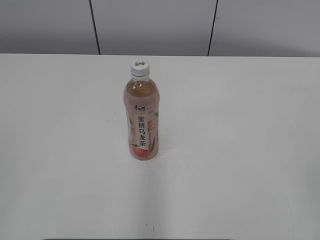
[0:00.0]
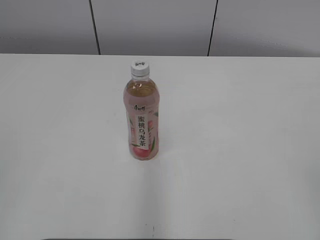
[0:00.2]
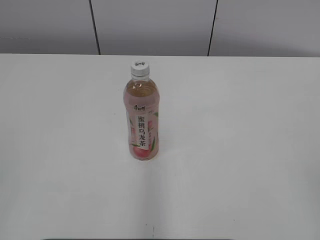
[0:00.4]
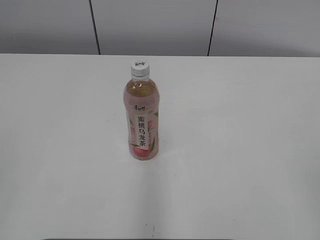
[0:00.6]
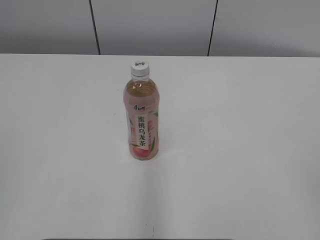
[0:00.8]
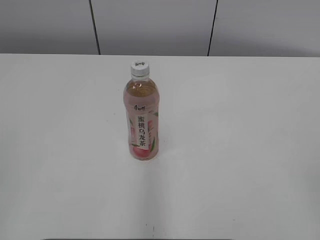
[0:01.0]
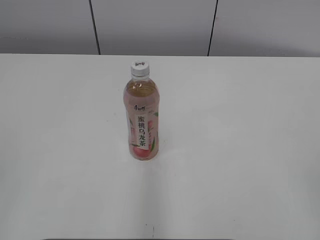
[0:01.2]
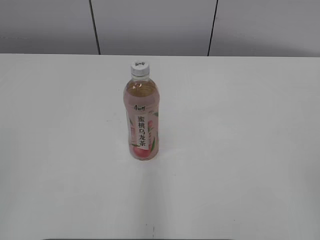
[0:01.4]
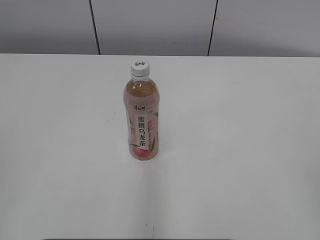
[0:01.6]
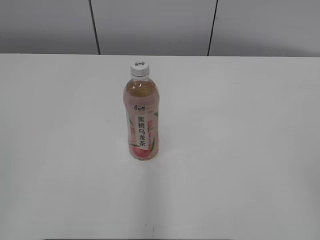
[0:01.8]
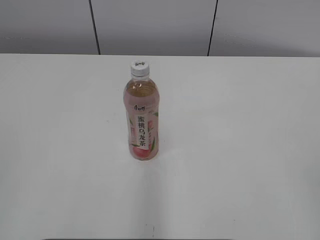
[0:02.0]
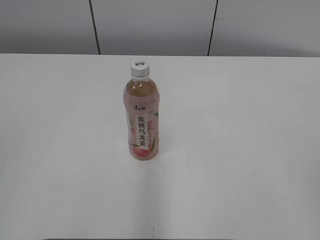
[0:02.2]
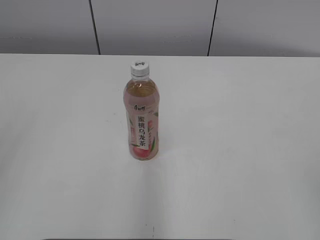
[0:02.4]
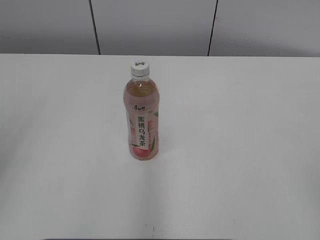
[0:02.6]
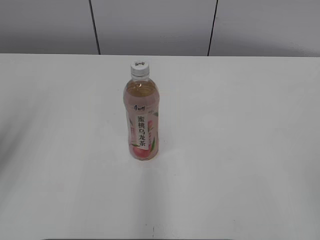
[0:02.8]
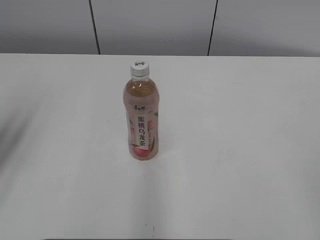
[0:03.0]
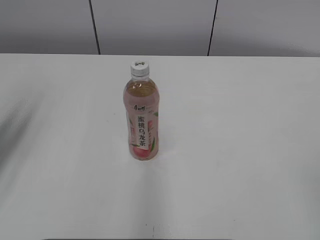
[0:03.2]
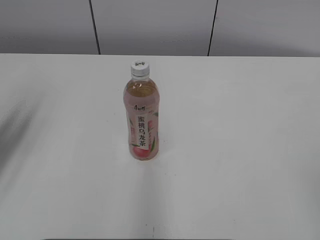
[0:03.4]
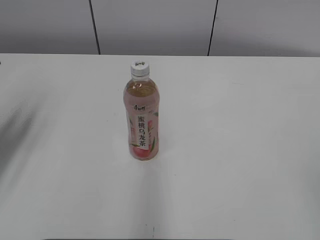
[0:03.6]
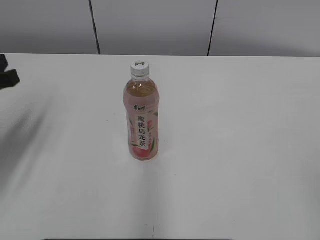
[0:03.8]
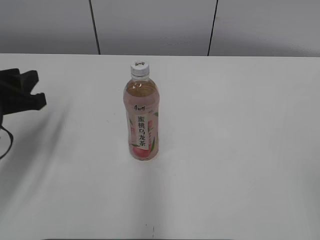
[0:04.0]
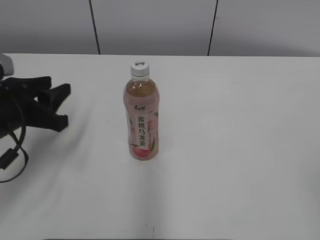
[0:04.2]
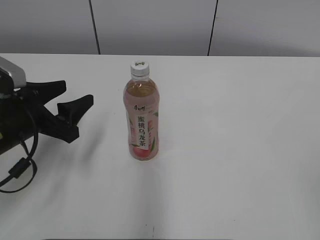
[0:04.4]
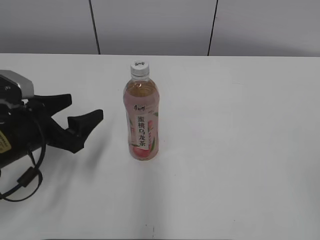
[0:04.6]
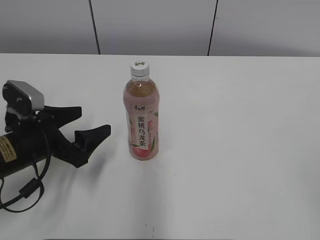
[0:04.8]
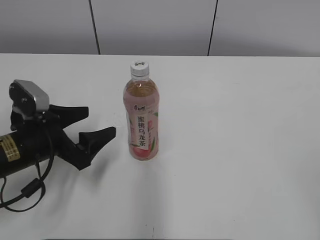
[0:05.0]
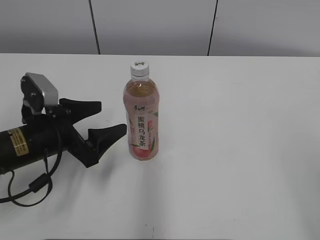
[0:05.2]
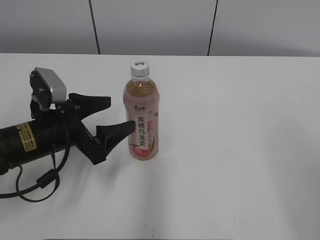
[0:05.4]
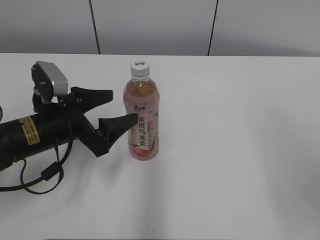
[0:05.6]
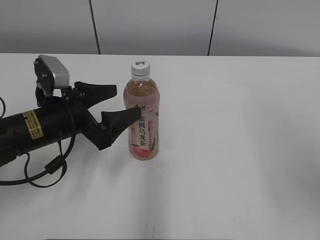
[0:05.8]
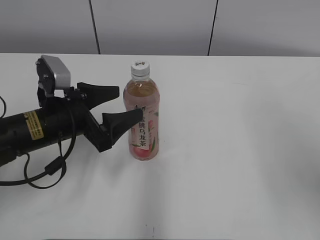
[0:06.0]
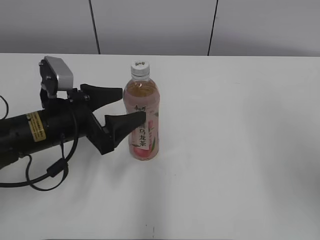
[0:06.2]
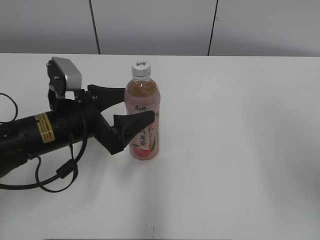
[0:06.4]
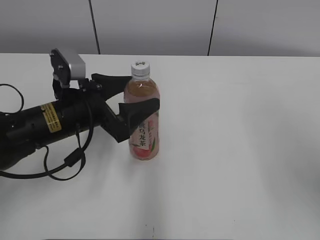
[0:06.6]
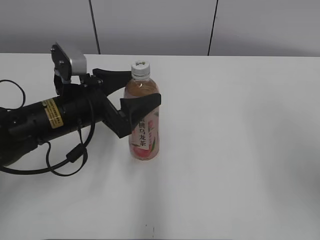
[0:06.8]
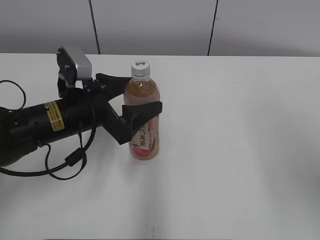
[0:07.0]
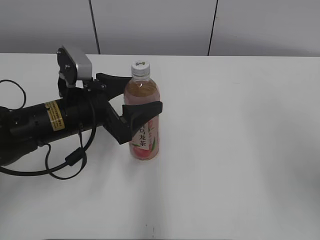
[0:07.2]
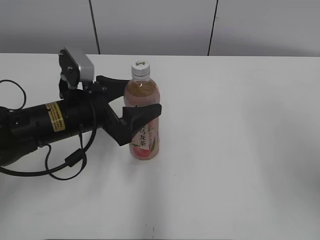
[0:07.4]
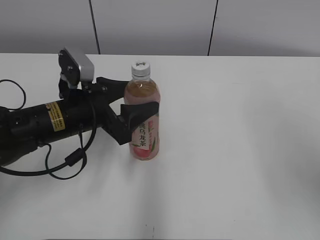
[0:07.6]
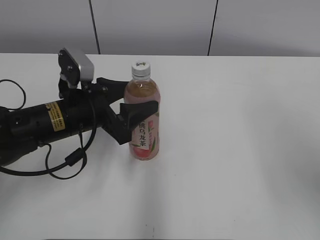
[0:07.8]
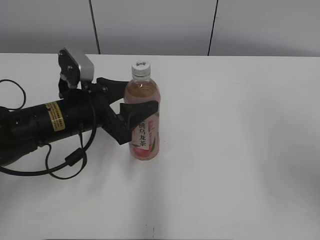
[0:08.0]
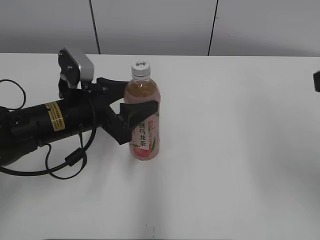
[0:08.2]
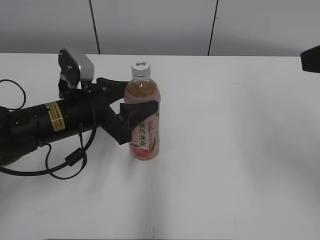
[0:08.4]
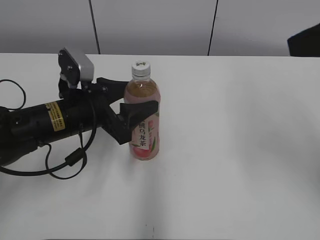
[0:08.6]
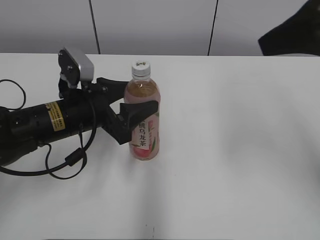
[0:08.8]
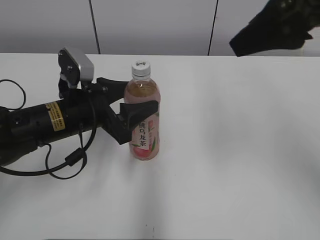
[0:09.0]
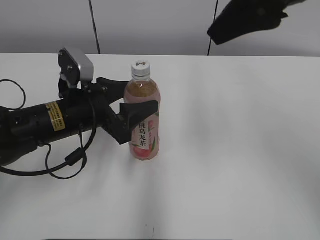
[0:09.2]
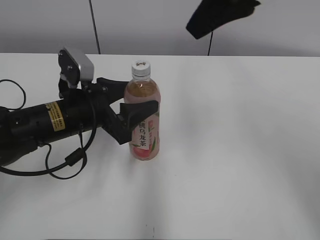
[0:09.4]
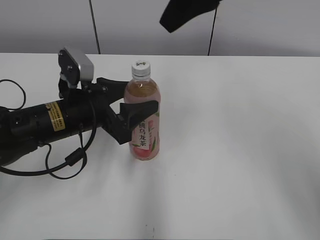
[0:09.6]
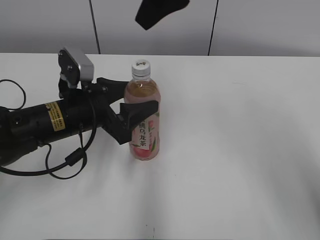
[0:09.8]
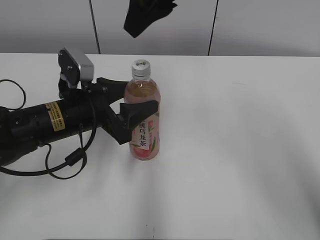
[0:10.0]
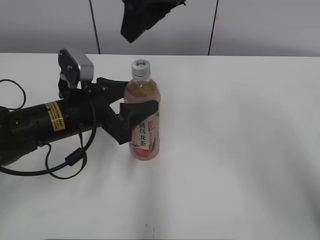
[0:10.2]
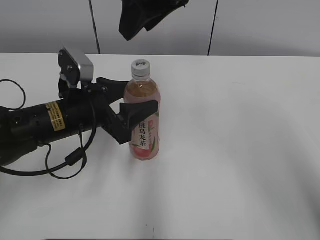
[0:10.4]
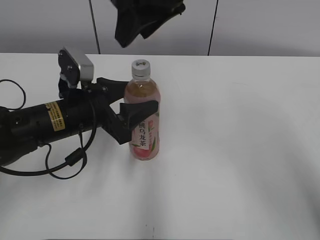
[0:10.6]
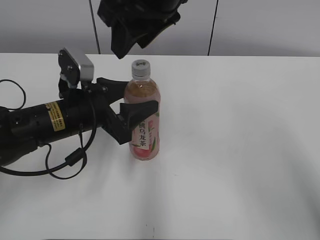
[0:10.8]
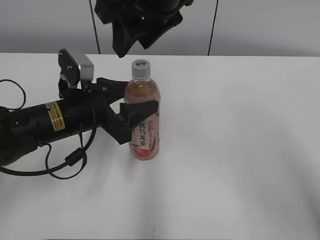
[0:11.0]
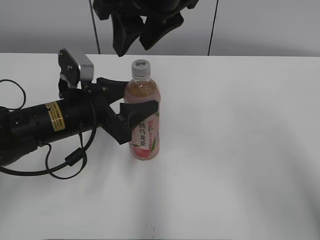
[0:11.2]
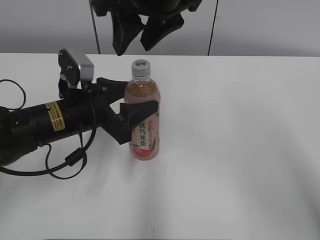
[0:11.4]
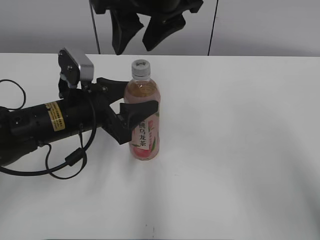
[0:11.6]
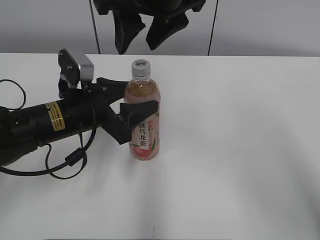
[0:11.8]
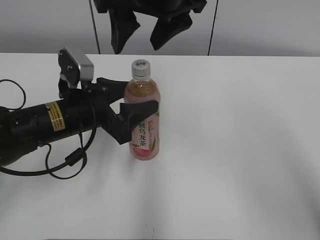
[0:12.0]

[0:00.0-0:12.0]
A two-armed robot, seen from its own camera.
Step, 0:00.0 to 0:07.6: Grab the Peach Oolong Tea with the left hand.
0:01.6 to 0:03.0: The left gripper travels forward by some 20 cm.
0:03.0 to 0:04.4: The left gripper is displaced downward, to the right and forward by approximately 20 cm, and opens up.
0:04.4 to 0:06.0: The left gripper goes roughly 5 cm to the right. The right gripper travels forward and upward by approximately 15 cm.
0:06.0 to 0:07.6: The grippers move only a little.
0:07.6 to 0:09.0: The right gripper is displaced forward and to the left by about 15 cm.
0:09.0 to 0:10.4: The right gripper is displaced to the left and forward by approximately 15 cm, and closes up.
0:10.4 to 0:12.0: The right gripper opens.

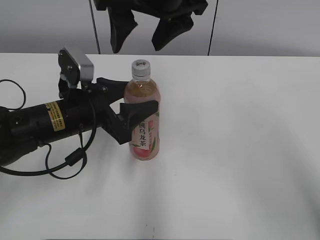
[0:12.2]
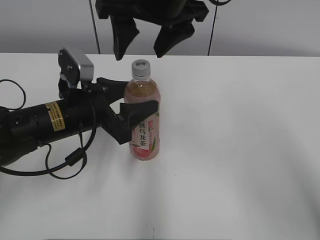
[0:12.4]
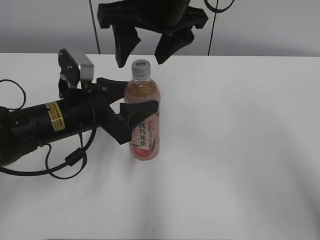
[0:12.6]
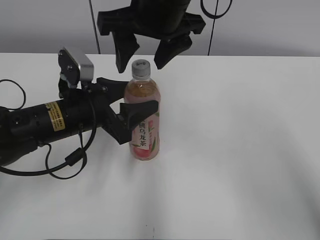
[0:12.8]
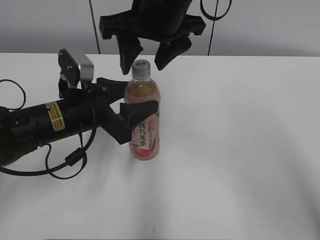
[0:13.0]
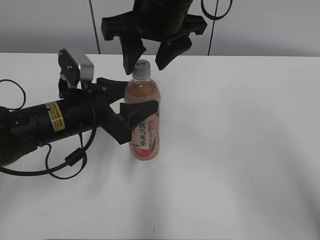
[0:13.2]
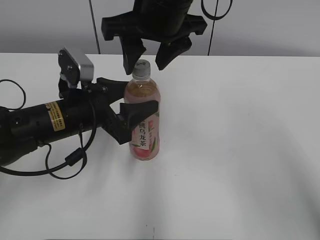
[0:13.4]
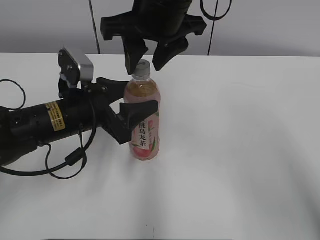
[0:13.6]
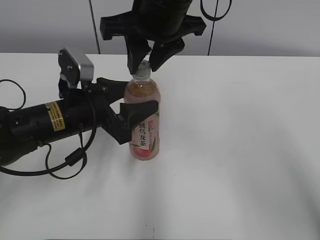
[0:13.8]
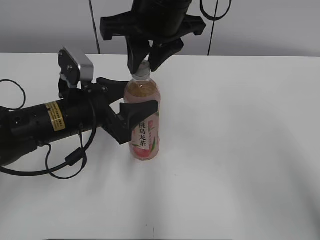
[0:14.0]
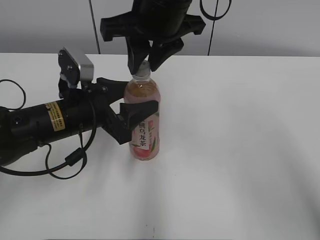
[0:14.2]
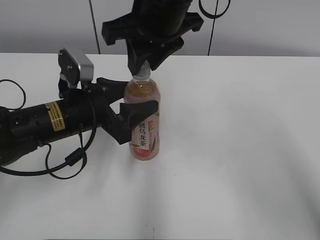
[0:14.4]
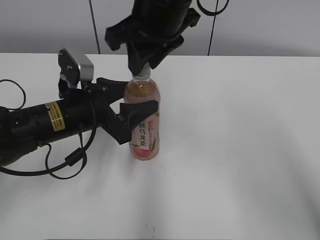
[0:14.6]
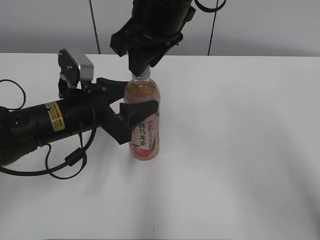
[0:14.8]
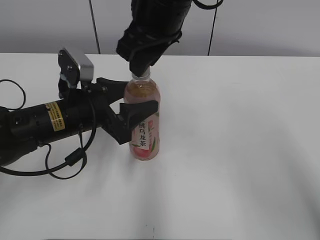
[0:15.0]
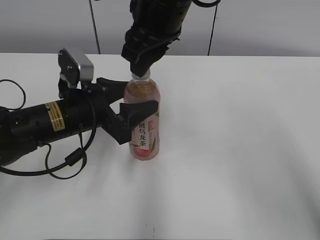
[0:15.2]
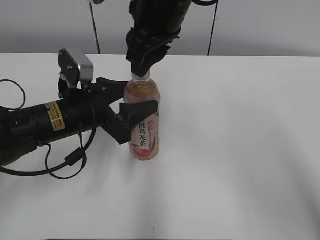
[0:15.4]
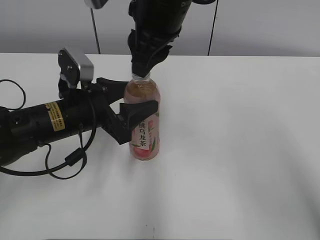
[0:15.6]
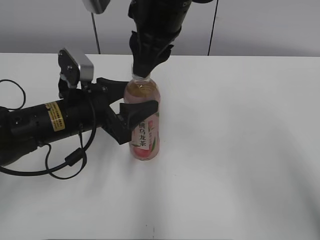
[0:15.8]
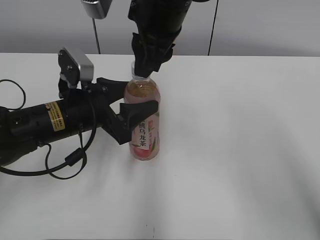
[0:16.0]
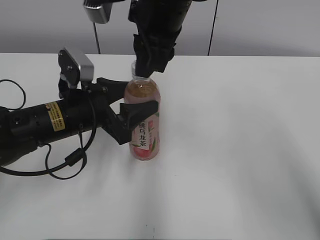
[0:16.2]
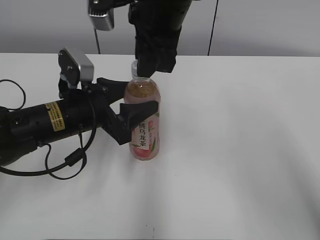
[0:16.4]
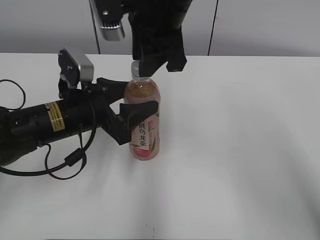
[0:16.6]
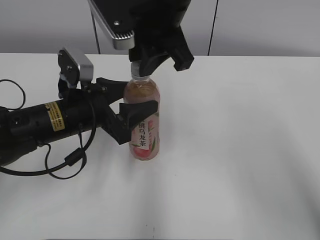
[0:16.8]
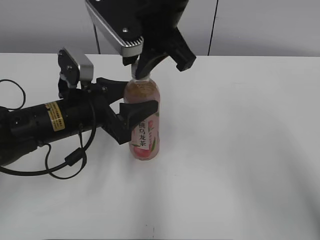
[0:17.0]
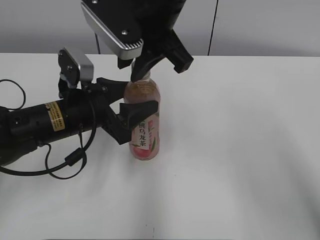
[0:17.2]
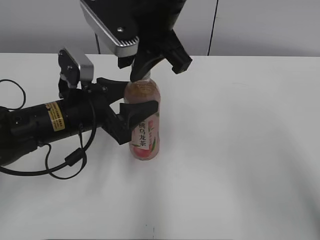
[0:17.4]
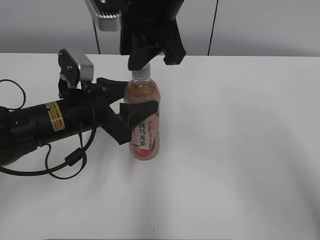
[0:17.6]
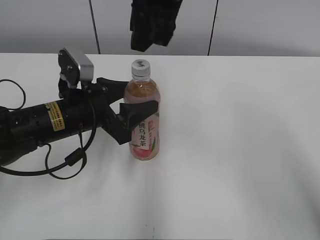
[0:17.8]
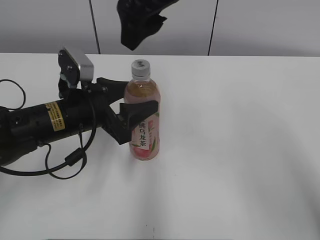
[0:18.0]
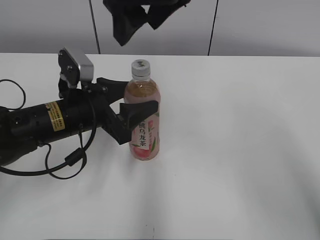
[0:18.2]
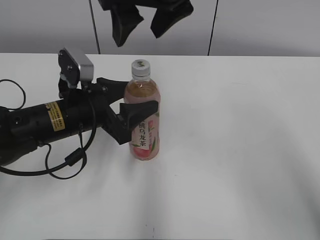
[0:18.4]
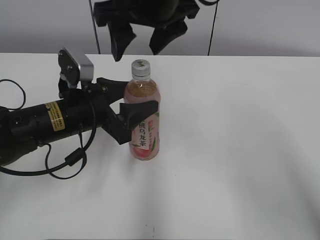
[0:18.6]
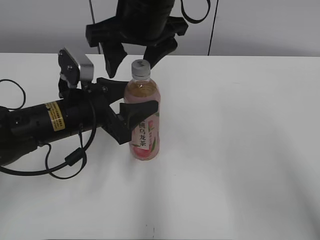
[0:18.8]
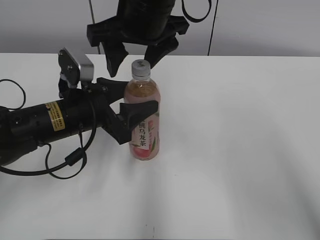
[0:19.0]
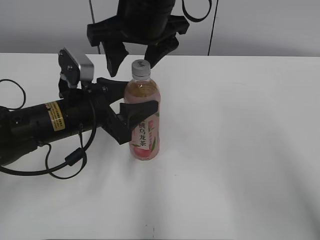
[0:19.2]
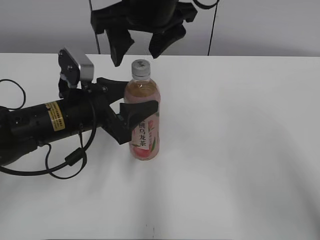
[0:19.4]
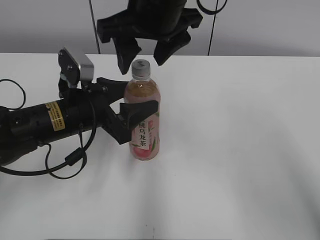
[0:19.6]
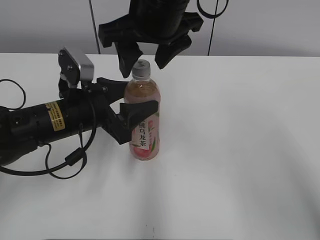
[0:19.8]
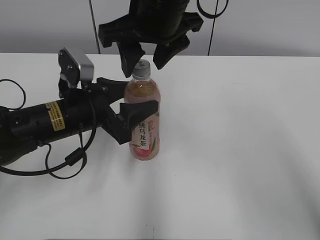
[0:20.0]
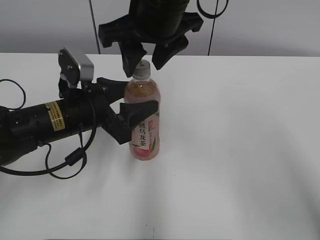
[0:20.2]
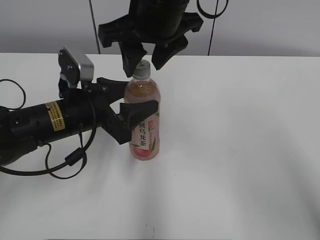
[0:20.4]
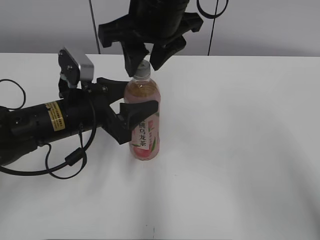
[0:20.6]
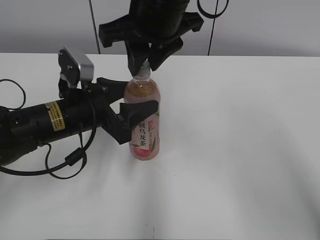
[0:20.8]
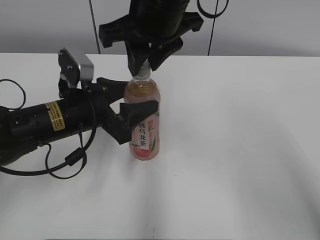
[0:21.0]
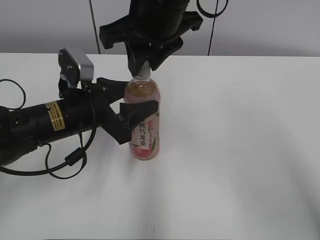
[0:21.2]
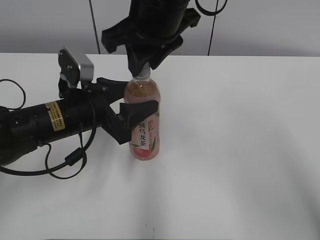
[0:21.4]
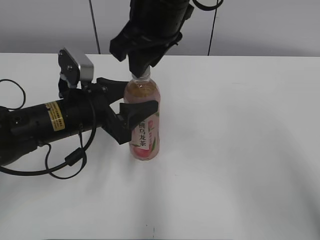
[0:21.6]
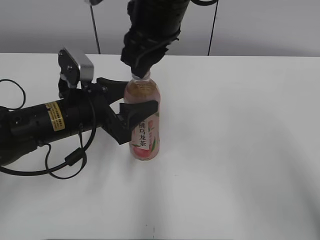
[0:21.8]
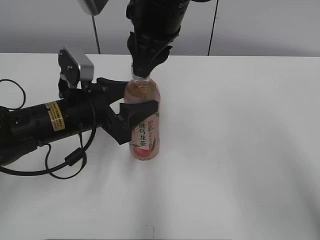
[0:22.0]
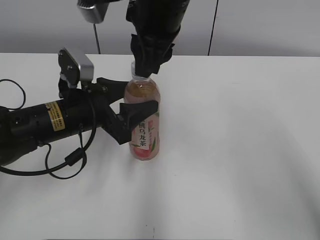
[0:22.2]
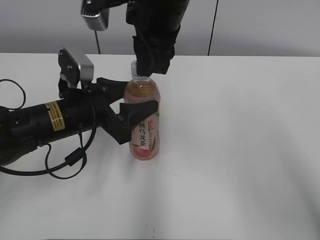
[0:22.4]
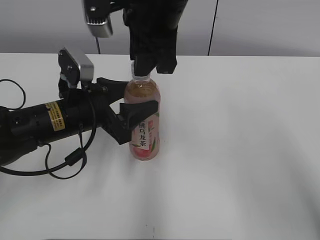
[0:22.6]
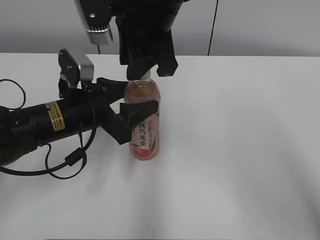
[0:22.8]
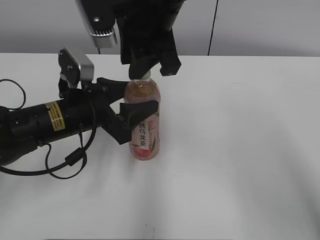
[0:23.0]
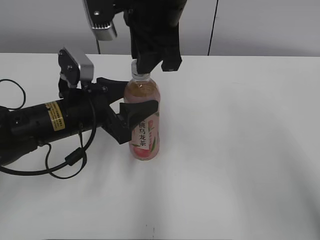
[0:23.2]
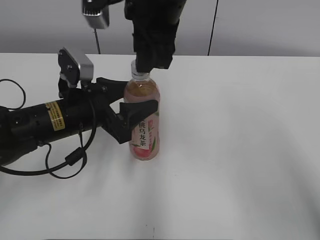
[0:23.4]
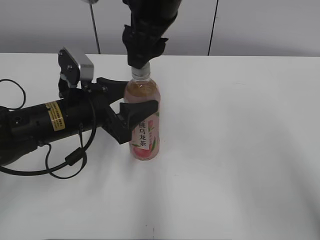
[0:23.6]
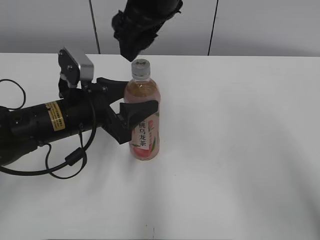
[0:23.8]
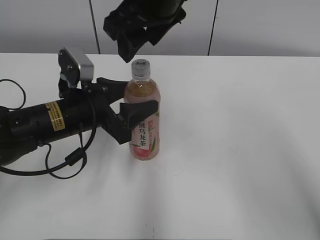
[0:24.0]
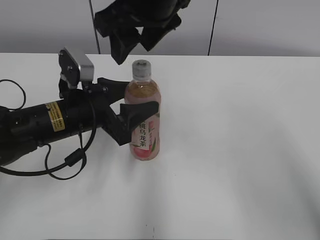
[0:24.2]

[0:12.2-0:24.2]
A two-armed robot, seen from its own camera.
0:12.2 to 0:13.8: The right gripper closes its fingers.
0:16.6 to 0:18.2: The right gripper opens up.
0:19.8 to 0:21.2: The right gripper closes up.
0:22.6 to 0:24.2: The right gripper opens its fingers.
